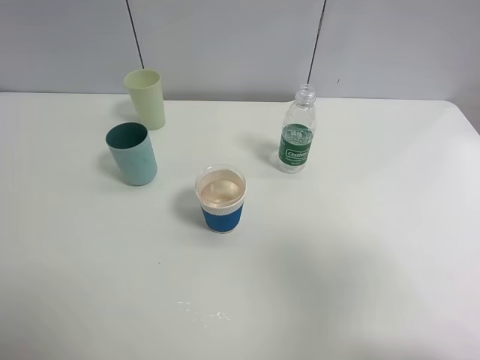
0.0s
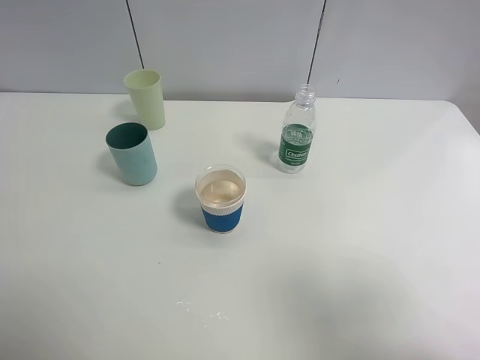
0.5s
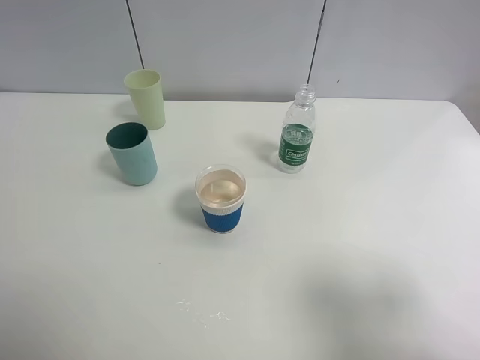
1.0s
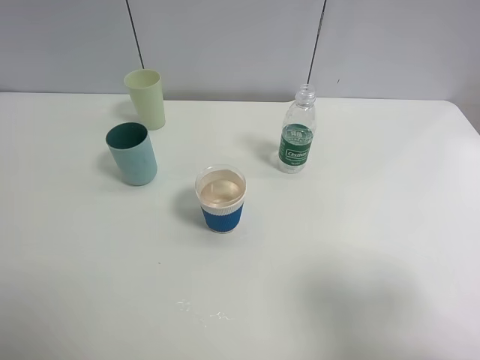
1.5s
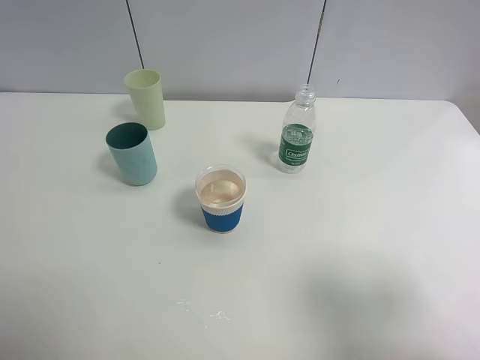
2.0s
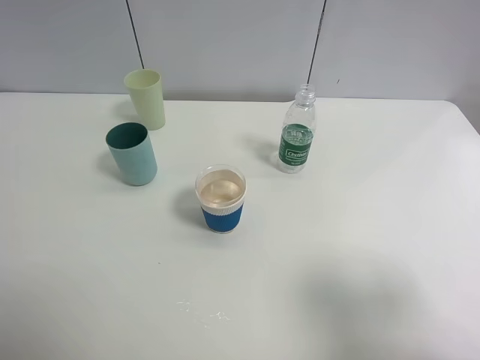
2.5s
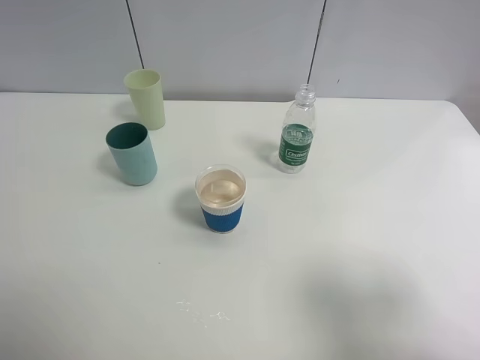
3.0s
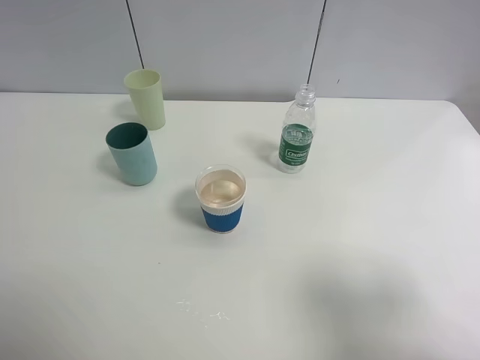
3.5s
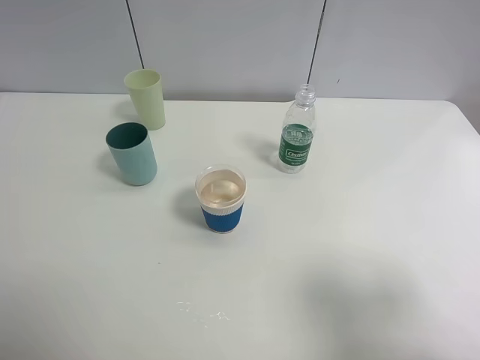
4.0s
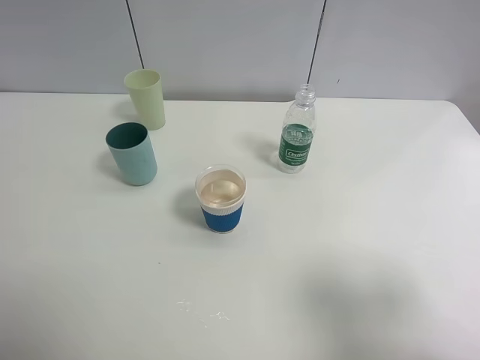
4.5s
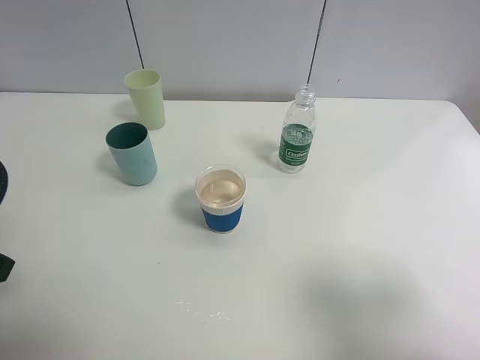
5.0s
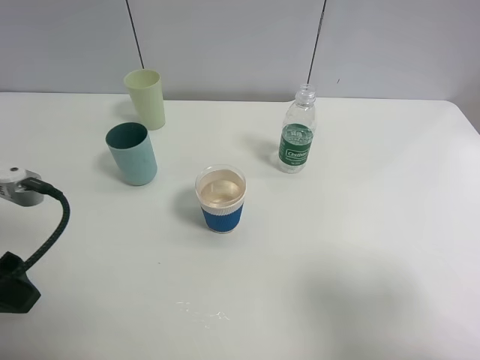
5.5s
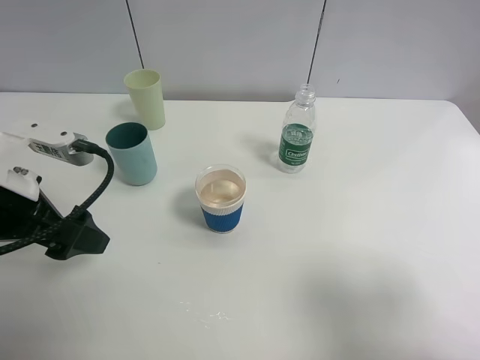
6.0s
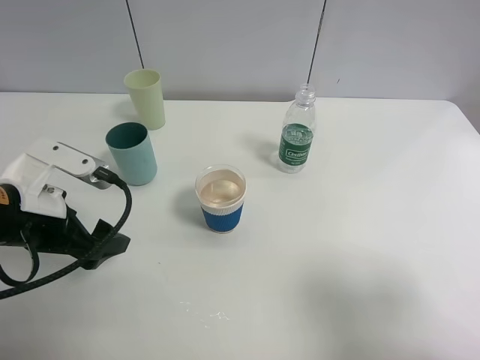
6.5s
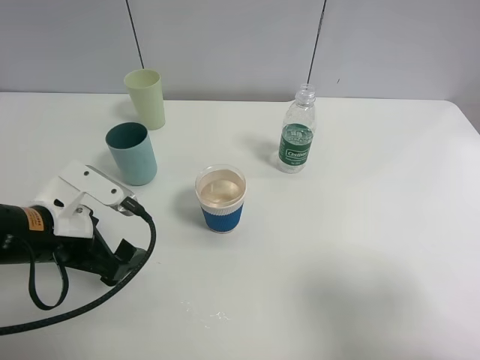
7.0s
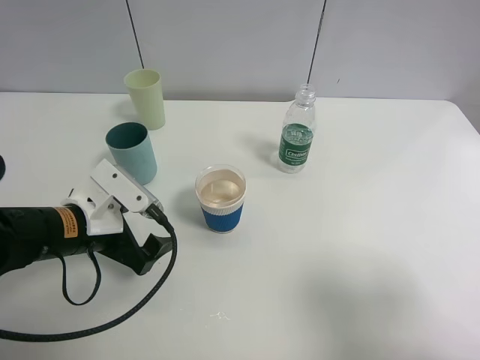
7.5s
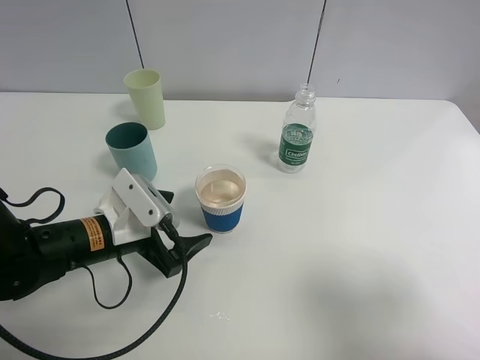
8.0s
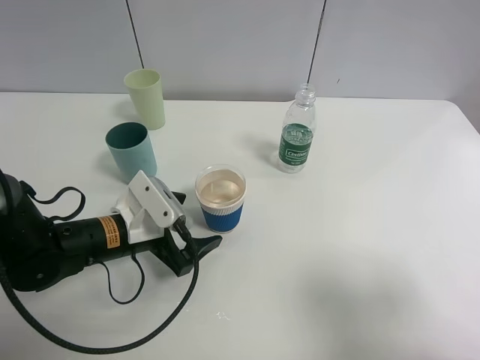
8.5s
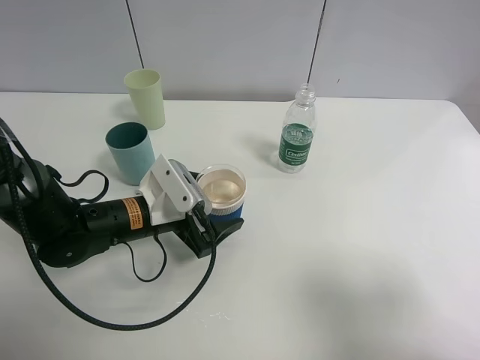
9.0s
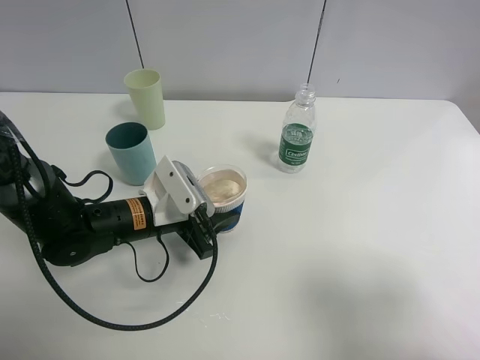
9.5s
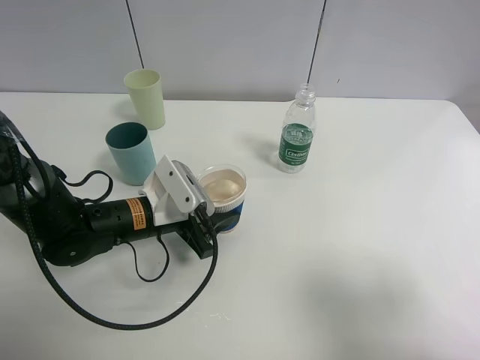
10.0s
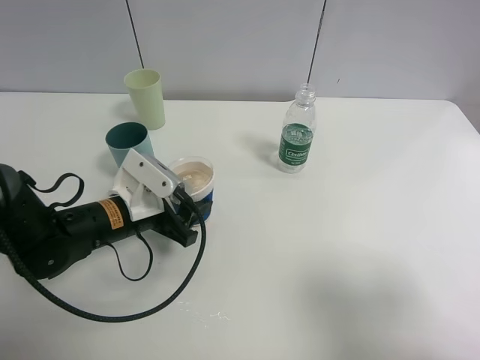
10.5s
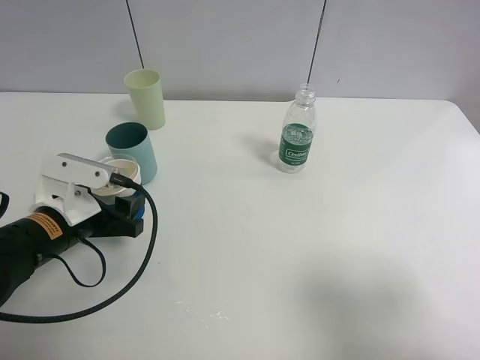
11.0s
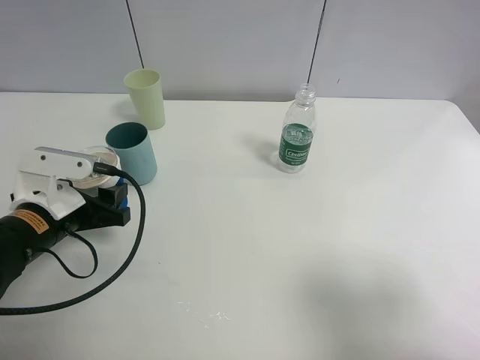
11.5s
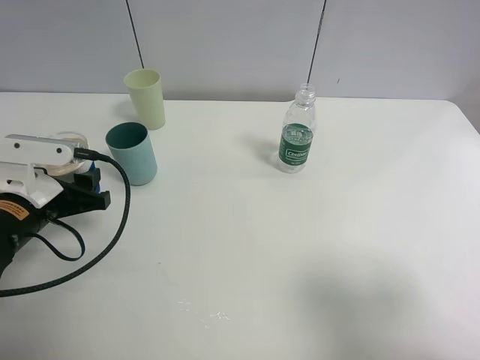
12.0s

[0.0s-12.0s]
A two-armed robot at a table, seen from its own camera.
Task of the whole recording: use a clamp to hold the bottle of the drink, pour the beverage into a random cup, then clamp the cup containing the drink and pour the drink into another random cup.
0.0s to 2.0s: The right gripper travels downward by about 5 cm.
2.0s to 4.0s: Neither gripper changes place.
4.0s to 6.0s: The left gripper heads forward, downward and to the right, covering some 20 cm.
6.0s to 8.0s: The left gripper shifts some 15 cm downward and to the right.
8.0s to 10.0s: The left gripper moves about 5 cm, and closes.
10.0s to 12.0s: The left gripper goes some 15 cm to the left and upward.

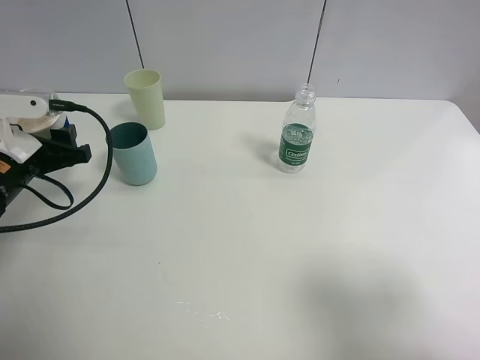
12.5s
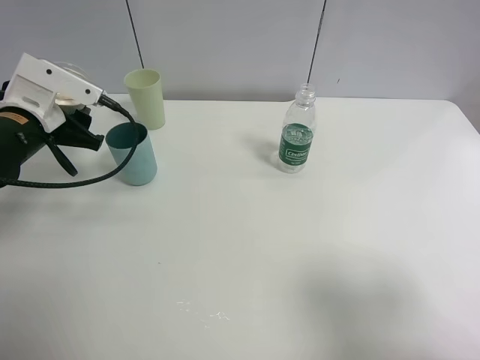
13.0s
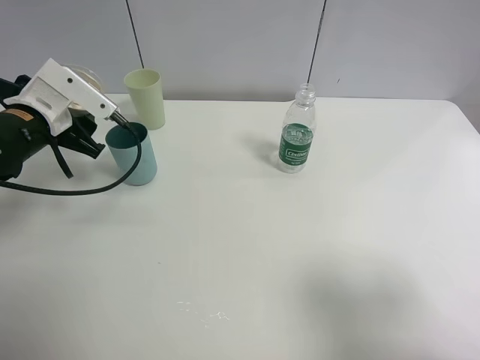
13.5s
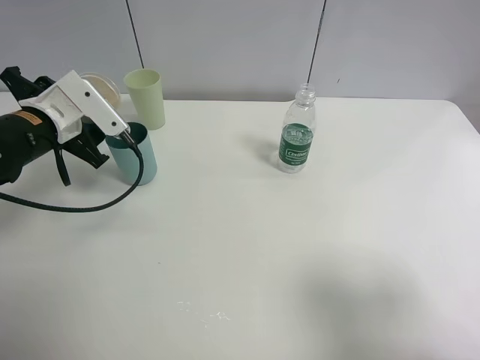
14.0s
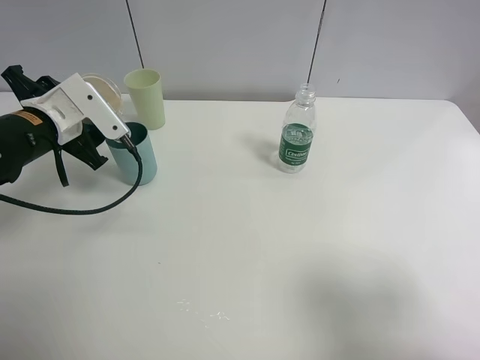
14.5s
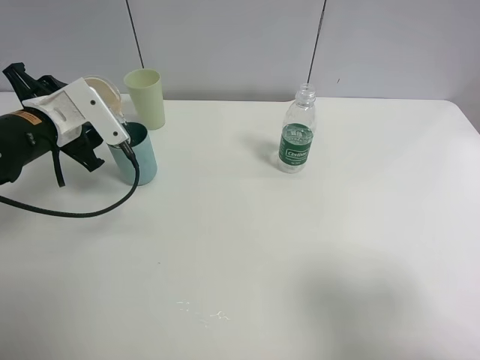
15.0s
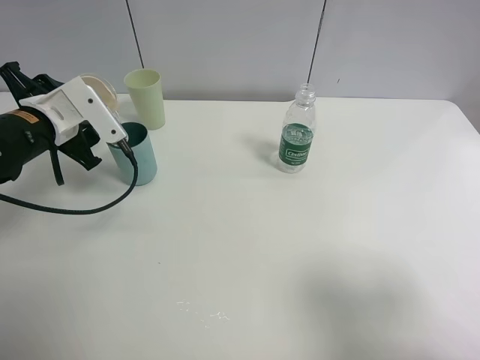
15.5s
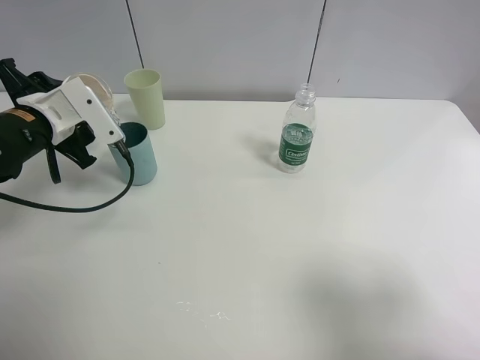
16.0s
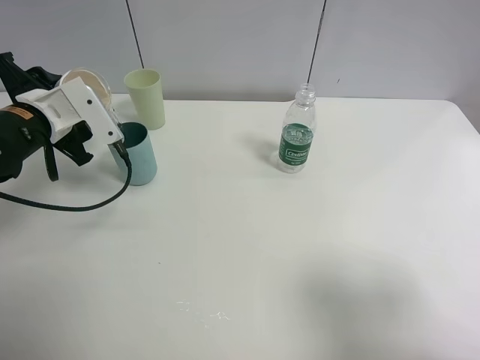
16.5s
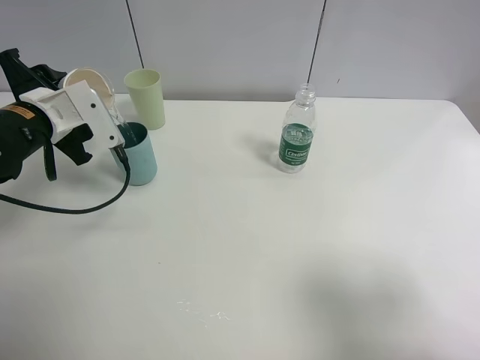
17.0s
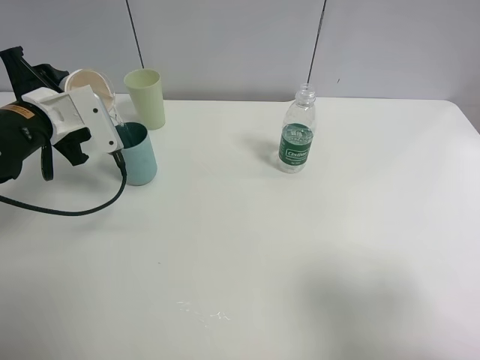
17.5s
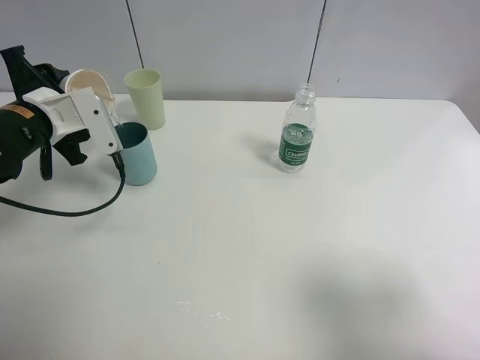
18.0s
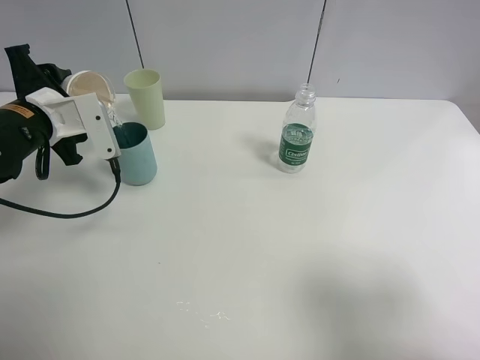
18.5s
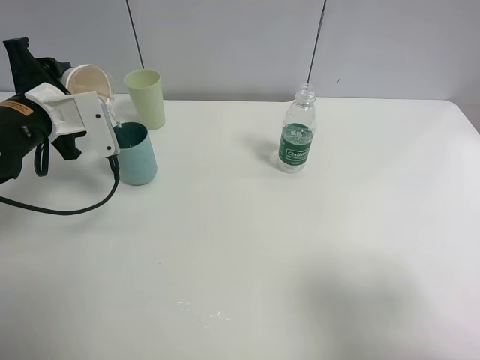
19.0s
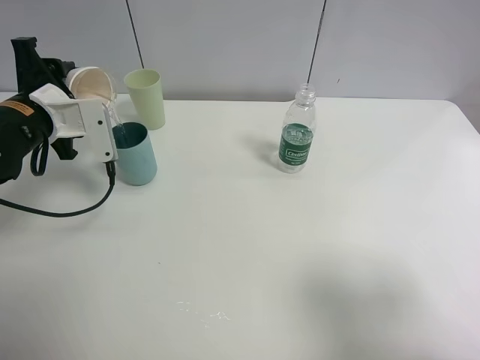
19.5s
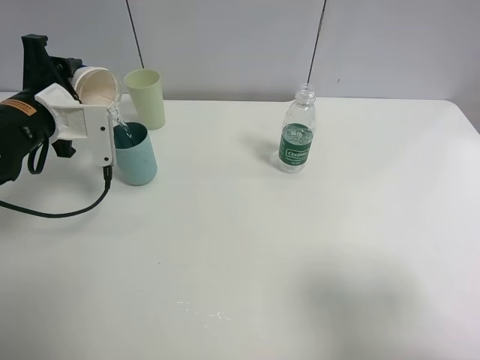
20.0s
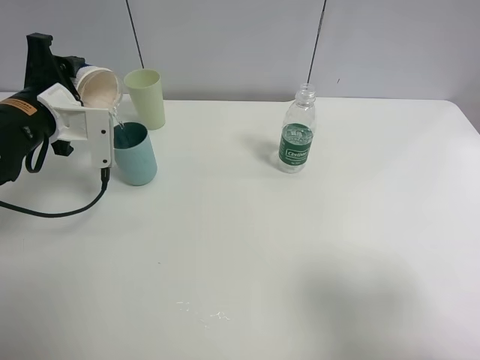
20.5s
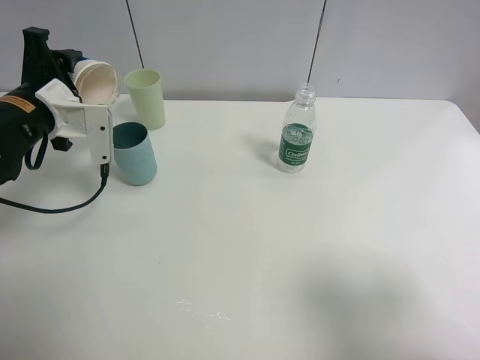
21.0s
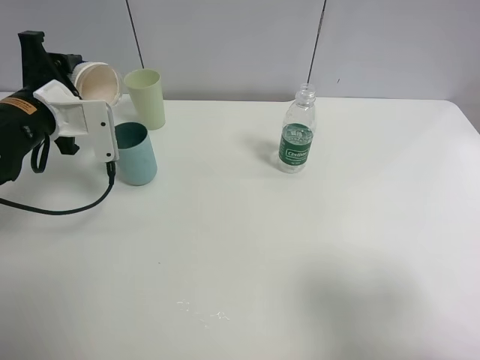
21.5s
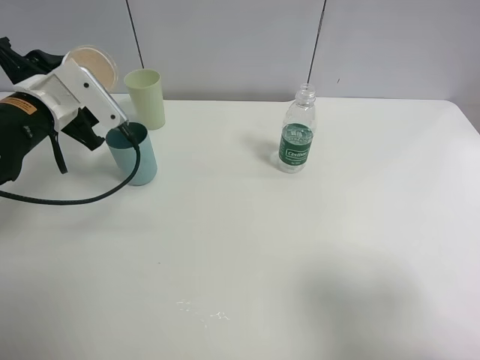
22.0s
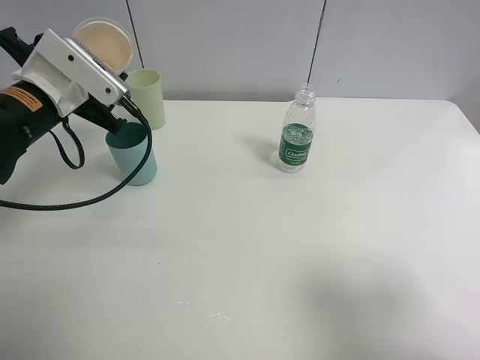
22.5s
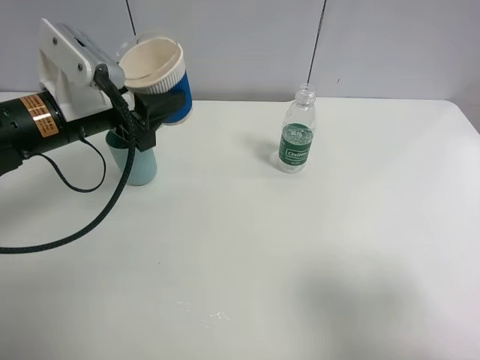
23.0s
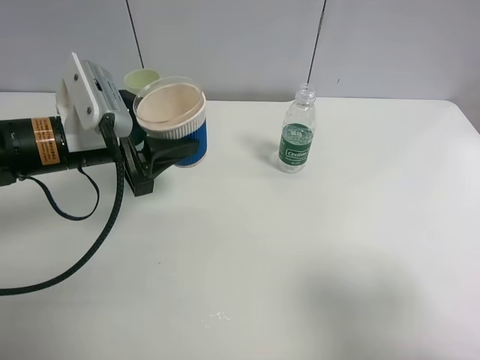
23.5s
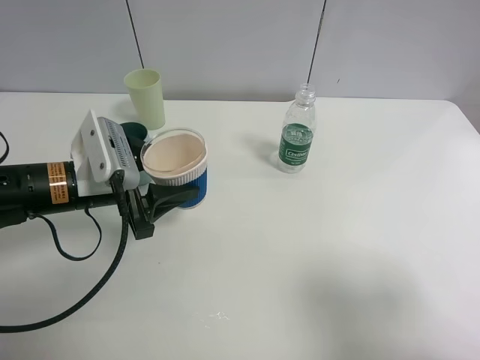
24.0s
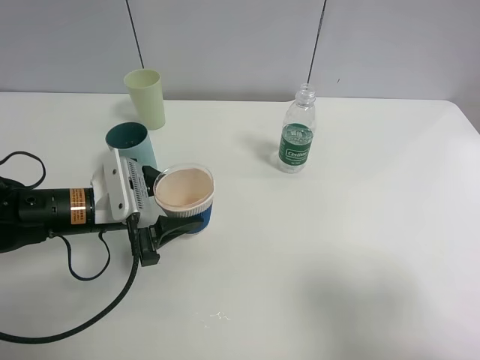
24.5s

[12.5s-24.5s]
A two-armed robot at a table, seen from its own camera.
Task of the whole recording: use a clamp to hold the bottle of the drink, pour the beverage into a random cup, then clamp the cup containing the drink and pour the drink into another random cup.
Step, 12.5s to 22.0s: Pour the water into the blue plastic cup with left gripper.
12.5s to 14.5s: The left gripper shifts by some 5 cm.
14.5s to 16.5s: The grippers move only a little.
16.5s to 18.5s: The grippers move only a little.
18.5s to 20.5s: The grippers stay close to where they were, moving slightly.
22.5s to 24.5s: The left gripper travels downward, backward and to the right by approximately 15 cm.

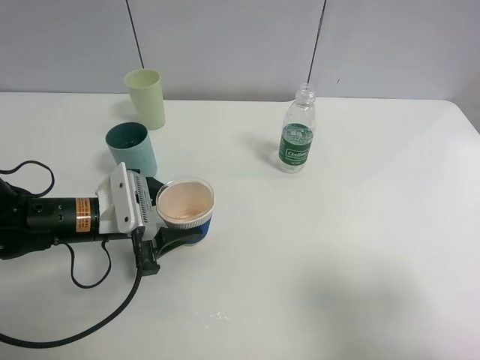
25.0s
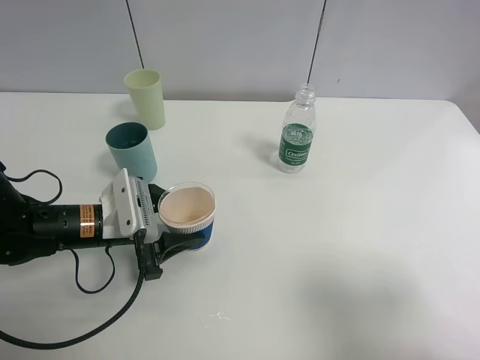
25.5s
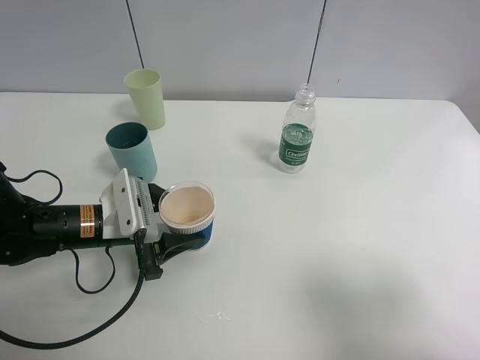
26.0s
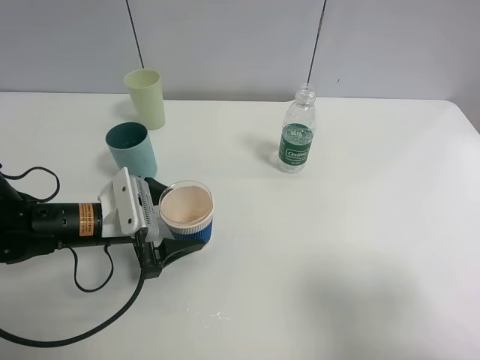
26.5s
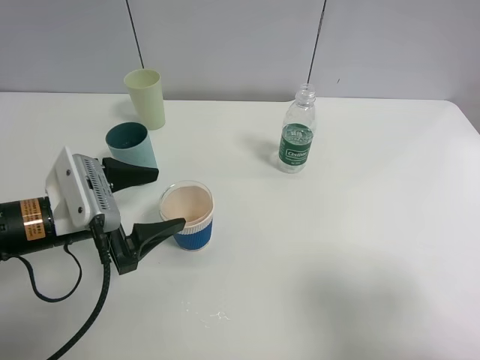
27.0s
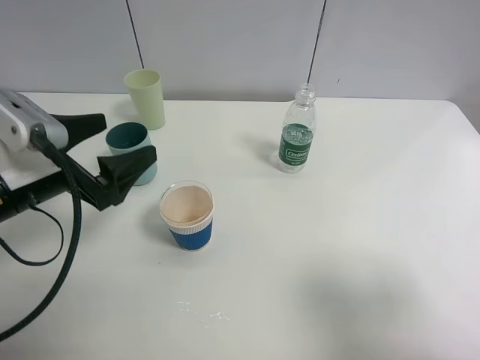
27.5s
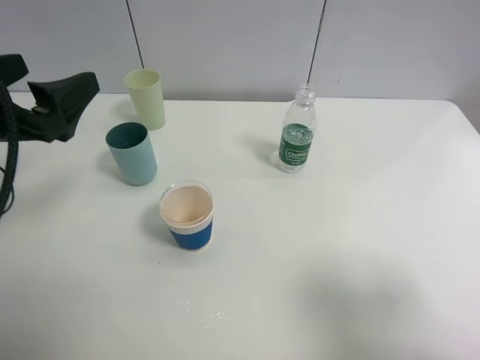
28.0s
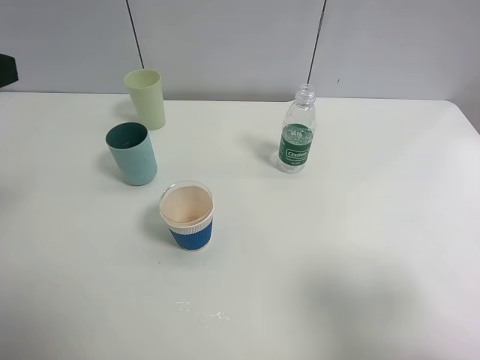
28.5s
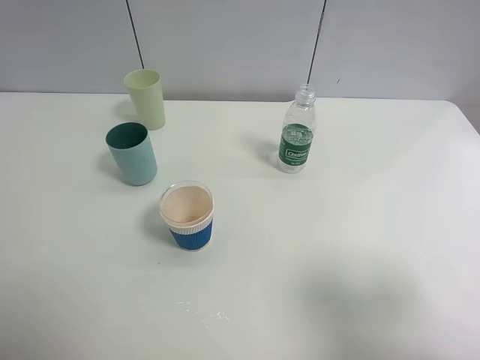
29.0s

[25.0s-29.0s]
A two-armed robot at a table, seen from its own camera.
Task of the whole recording: use a clamp to hold the bottle of the drink, pour the beverage into a random cup, then clamp the cup containing the drink and pour the drink into another random cup.
Step, 25.0s to 27.0s: Place the paper cup on the table with left gripper.
25.0s to 27.0s: The left gripper travels upward by about 5 cm, and opens.
27.0s to 29.0s: The left gripper moves upward, backward and to the left, roughly 25 cm, and opens its fingers.
